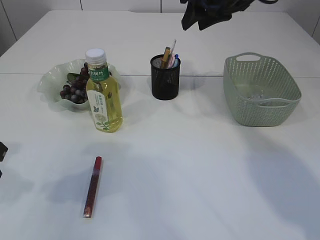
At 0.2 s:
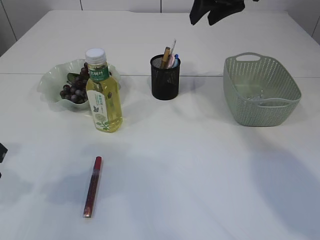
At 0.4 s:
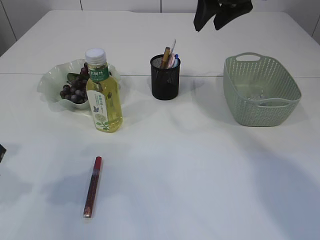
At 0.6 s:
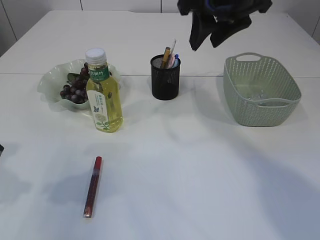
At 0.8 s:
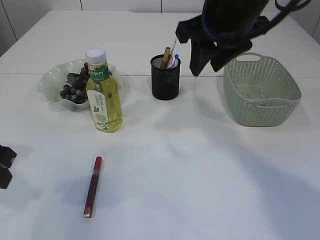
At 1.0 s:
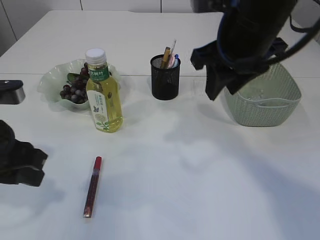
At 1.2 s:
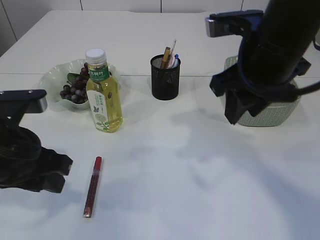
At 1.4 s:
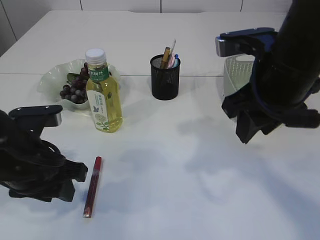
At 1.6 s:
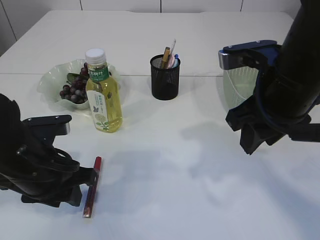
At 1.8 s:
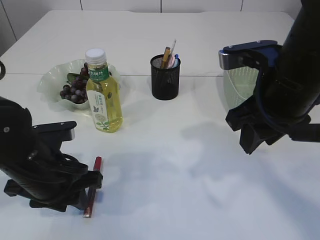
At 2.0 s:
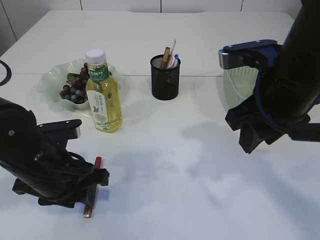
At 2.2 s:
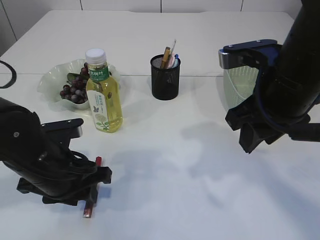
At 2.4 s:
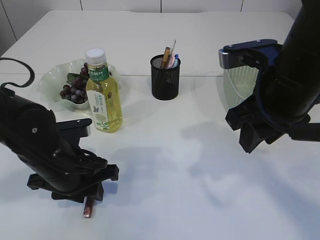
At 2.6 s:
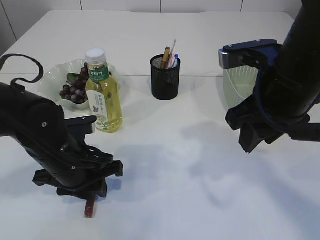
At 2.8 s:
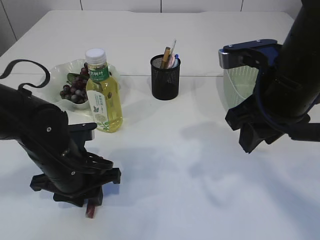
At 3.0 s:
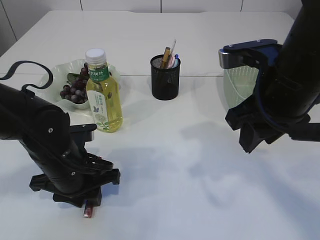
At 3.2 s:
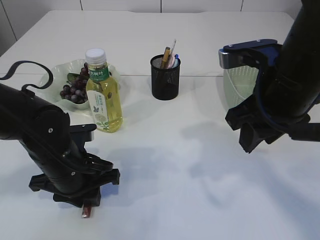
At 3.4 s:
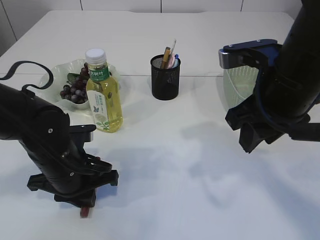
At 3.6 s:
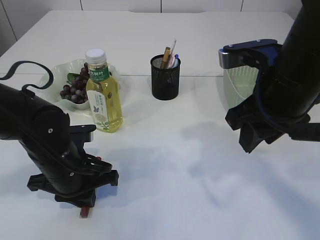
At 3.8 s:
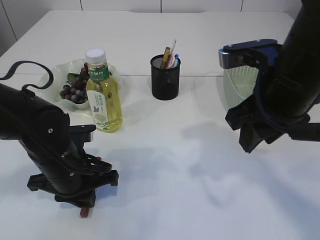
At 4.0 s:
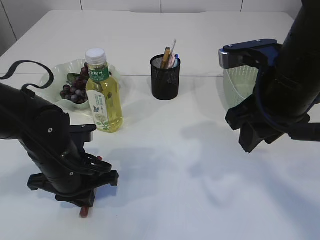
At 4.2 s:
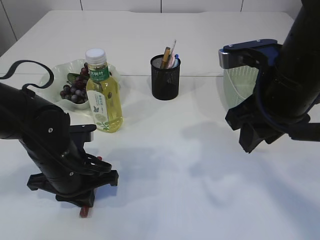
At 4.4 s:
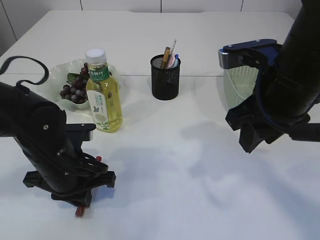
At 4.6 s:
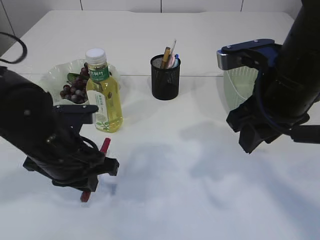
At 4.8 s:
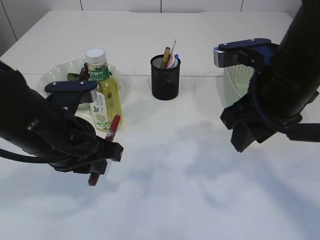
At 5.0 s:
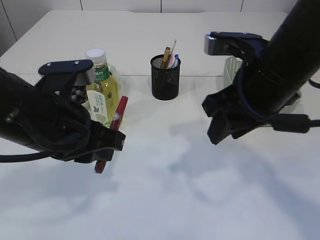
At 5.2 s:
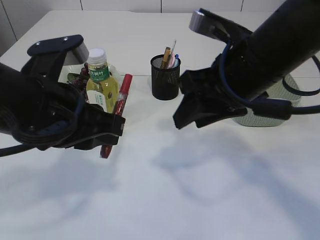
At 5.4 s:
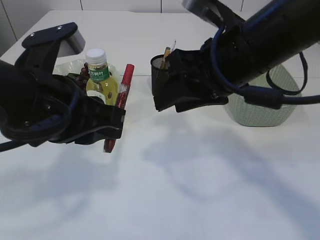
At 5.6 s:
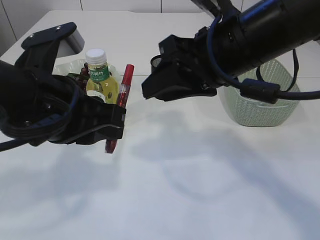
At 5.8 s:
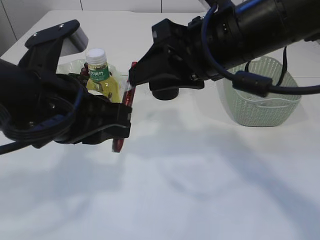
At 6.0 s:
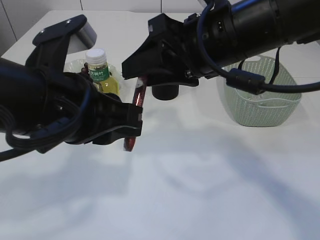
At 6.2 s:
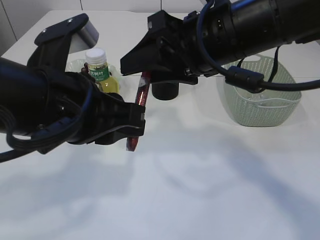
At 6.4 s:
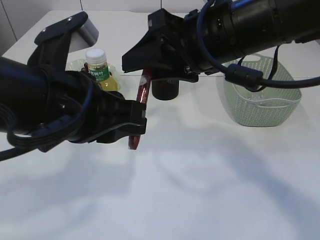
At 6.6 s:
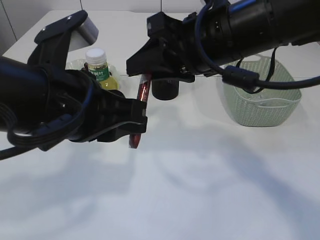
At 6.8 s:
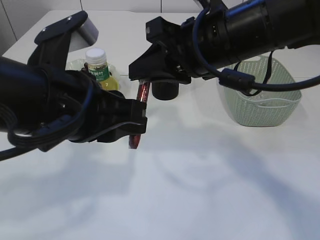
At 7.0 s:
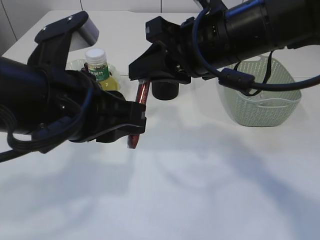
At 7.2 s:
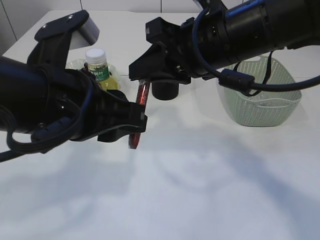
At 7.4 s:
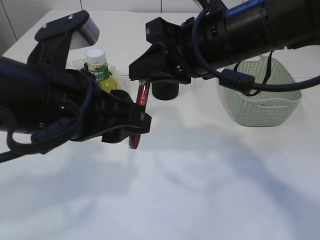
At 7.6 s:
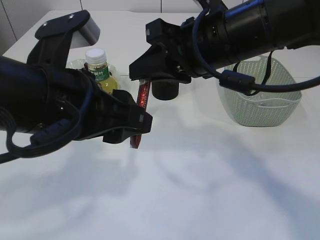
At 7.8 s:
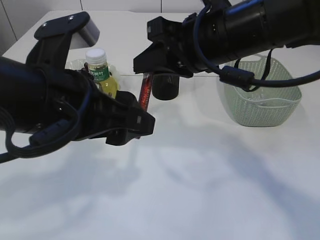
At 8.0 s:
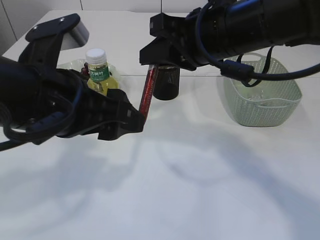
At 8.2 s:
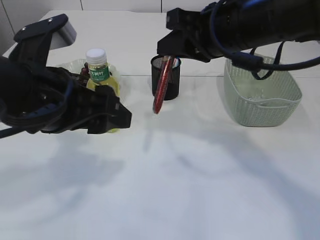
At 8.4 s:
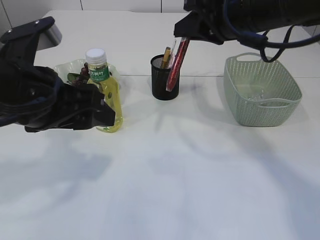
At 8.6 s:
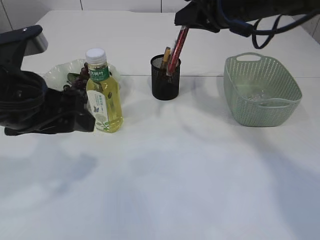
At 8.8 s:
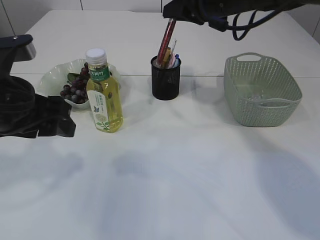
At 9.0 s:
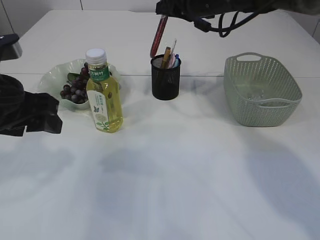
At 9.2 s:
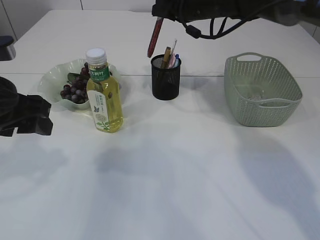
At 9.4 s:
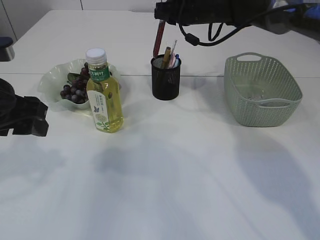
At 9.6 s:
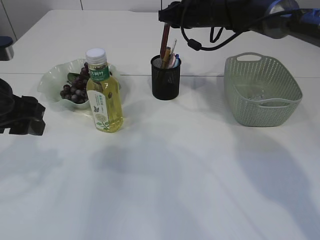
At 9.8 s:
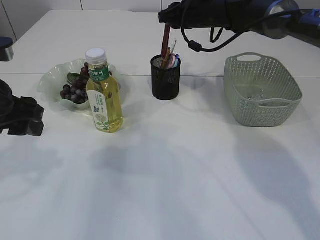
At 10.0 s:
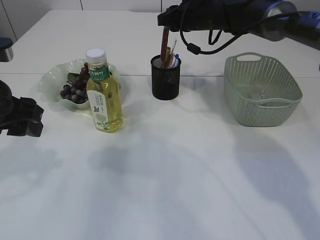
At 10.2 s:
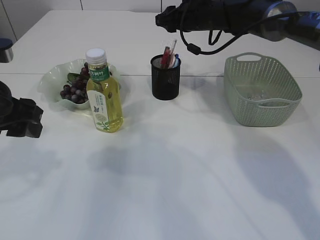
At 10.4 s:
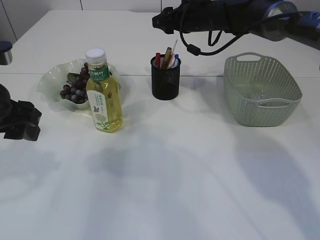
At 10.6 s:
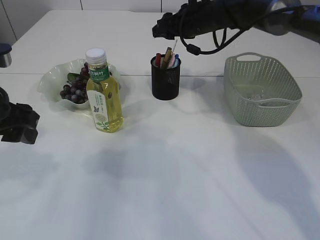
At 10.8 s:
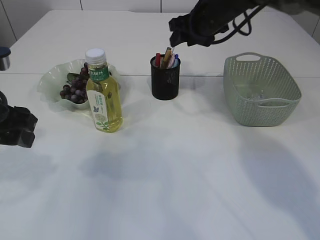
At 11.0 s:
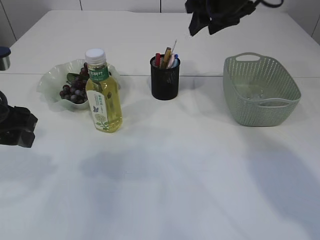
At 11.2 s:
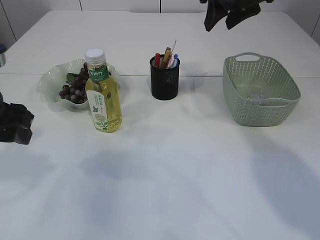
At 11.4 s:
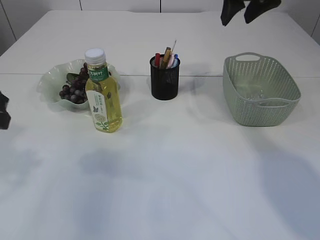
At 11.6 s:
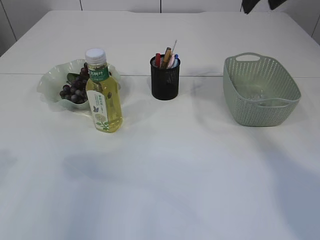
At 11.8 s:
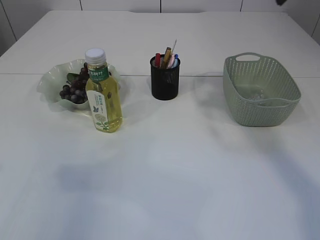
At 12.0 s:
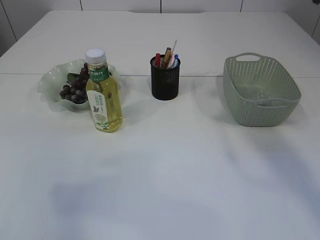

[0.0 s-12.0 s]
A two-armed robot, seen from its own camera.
Step, 0.0 to 5.0 s: pick up the red glue.
Step, 5.2 to 8.2 s: Hand over the red glue.
Step, 8.4 to 10.8 s: place the red glue into the pen holder.
0.0 to 1.6 s: The left gripper shifts approximately 10 cm to the right and downward. Meanwhile the right gripper heads backward, covering approximately 20 cm.
1.6 to 3.0 s: The left gripper ends up some 5 cm from where it was.
3.0 to 4.4 s: The left gripper closes its fingers.
4.4 to 6.0 s: The left gripper moves upward and backward, roughly 20 cm. The right gripper heads to the left, covering roughly 5 cm.
6.0 to 7.6 s: The right gripper closes its fingers, while the left gripper opens its fingers.
7.6 to 9.0 s: The right gripper shifts about 20 cm forward. The left gripper goes some 10 cm to the left and forward.
9.0 to 10.4 s: The right gripper is displaced forward and downward by about 10 cm, and opens its fingers.
10.4 to 12.0 s: The left gripper moves backward, upward and to the left, roughly 15 cm, while the right gripper heads backward, upward and to the right, covering approximately 35 cm.

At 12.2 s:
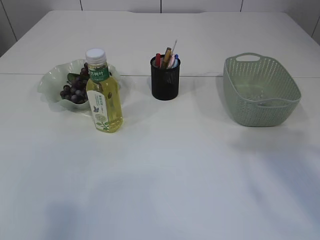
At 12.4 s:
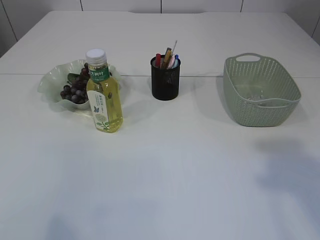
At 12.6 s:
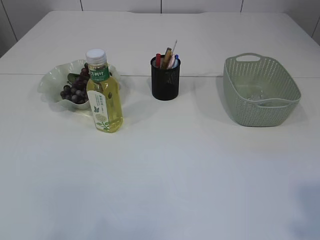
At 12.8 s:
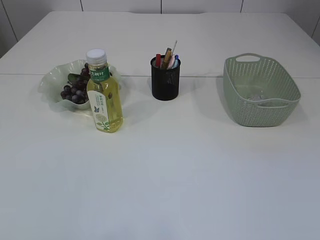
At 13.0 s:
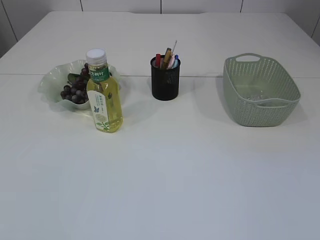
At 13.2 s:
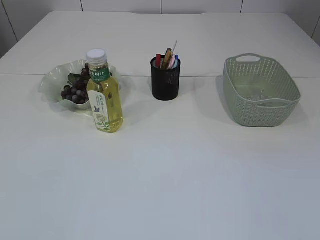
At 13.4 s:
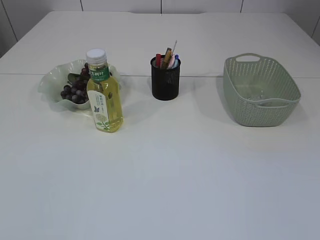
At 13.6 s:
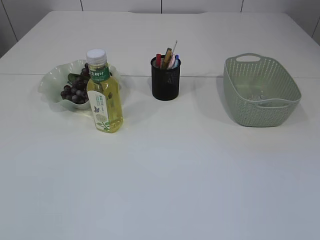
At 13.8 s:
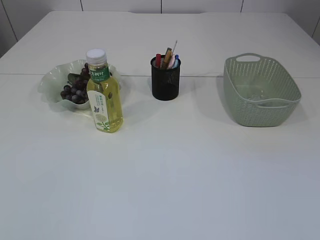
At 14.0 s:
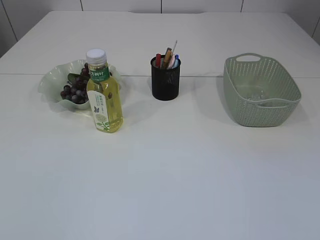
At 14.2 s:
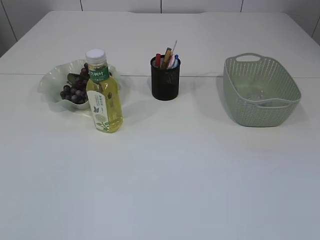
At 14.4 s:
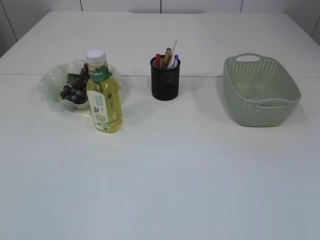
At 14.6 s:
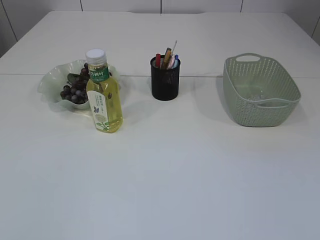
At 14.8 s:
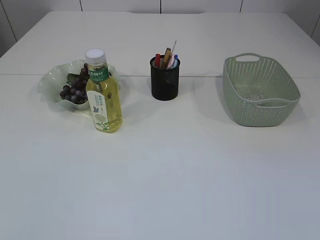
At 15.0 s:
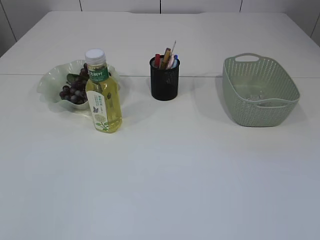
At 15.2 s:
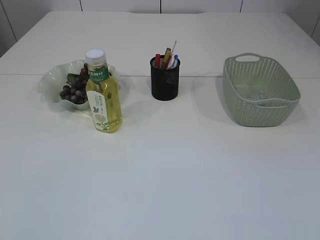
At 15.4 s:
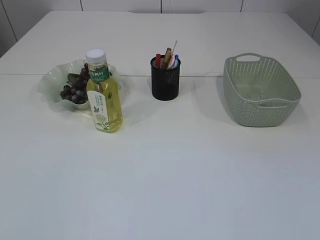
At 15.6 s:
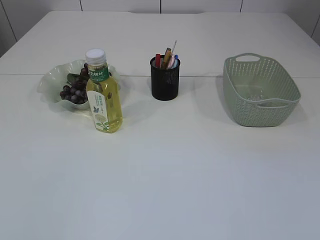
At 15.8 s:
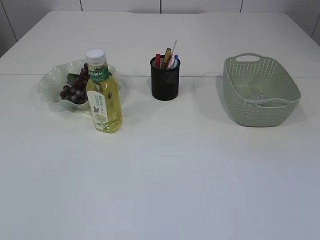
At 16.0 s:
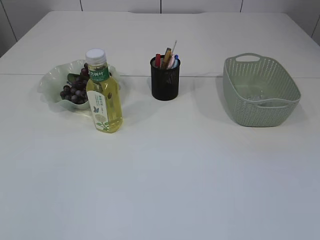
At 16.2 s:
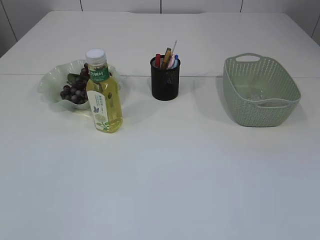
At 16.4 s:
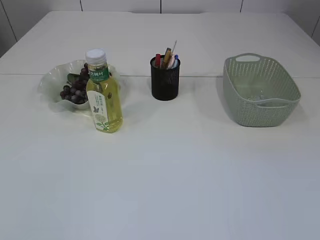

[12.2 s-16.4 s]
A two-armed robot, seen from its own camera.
12.2 to 13.6 s: The left gripper travels backward by about 15 cm; the right gripper heads backward and downward, covering some 30 cm.

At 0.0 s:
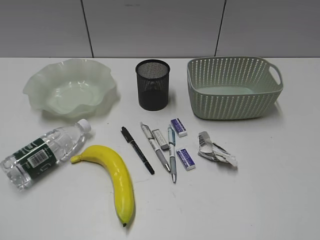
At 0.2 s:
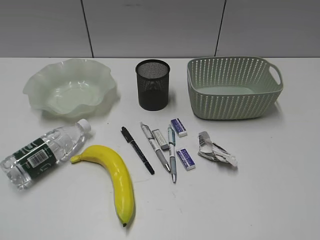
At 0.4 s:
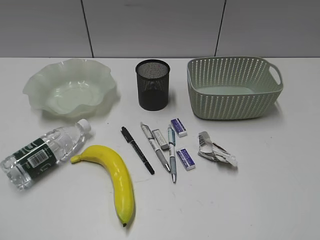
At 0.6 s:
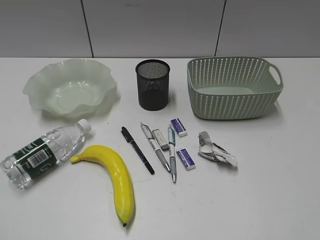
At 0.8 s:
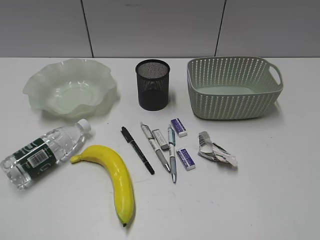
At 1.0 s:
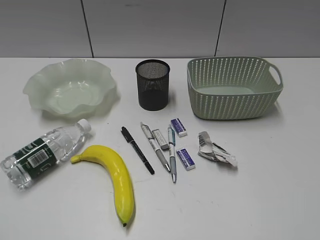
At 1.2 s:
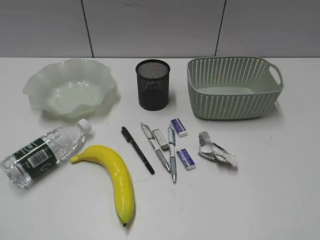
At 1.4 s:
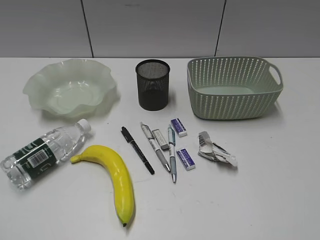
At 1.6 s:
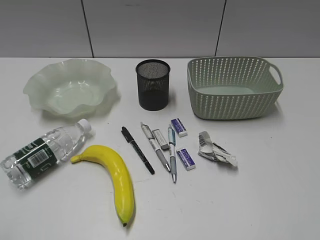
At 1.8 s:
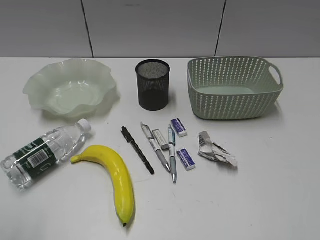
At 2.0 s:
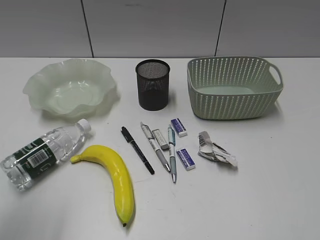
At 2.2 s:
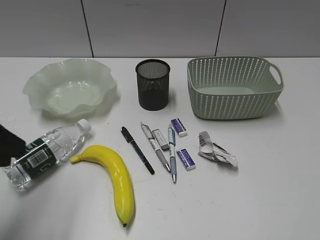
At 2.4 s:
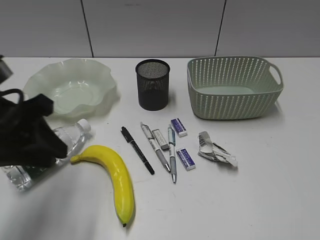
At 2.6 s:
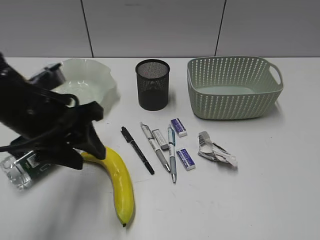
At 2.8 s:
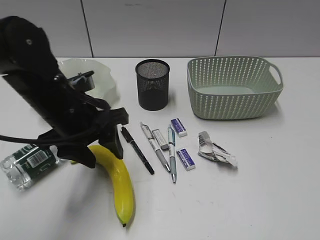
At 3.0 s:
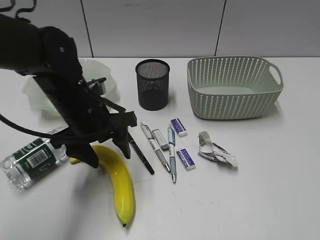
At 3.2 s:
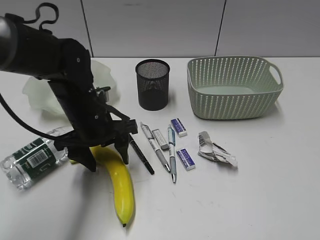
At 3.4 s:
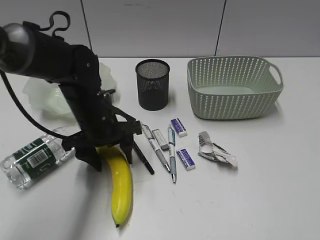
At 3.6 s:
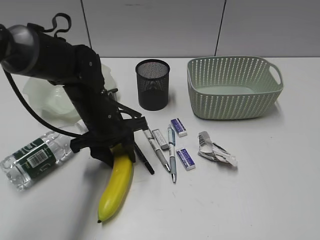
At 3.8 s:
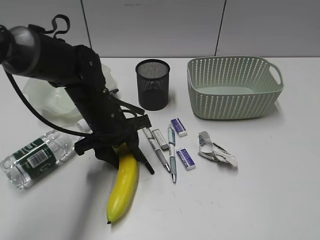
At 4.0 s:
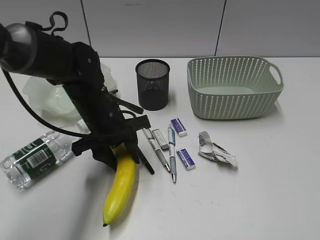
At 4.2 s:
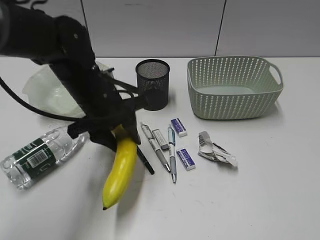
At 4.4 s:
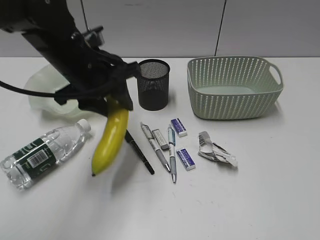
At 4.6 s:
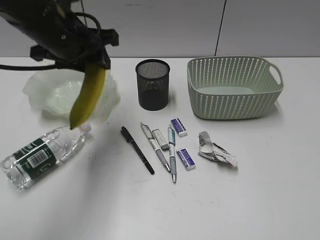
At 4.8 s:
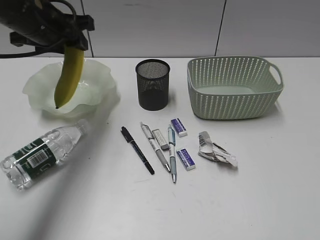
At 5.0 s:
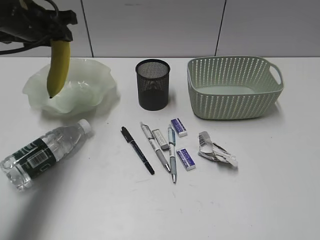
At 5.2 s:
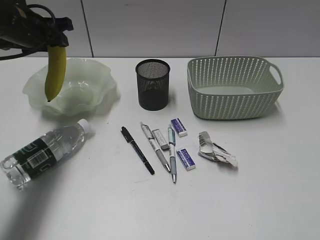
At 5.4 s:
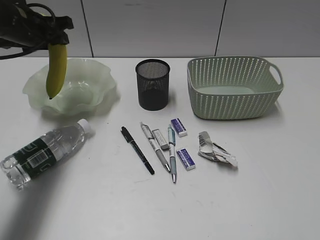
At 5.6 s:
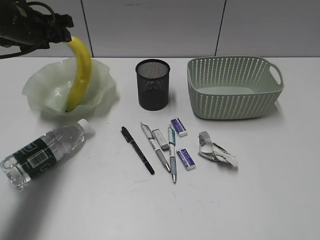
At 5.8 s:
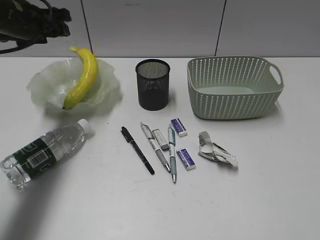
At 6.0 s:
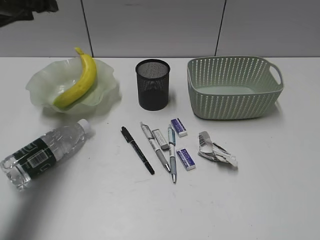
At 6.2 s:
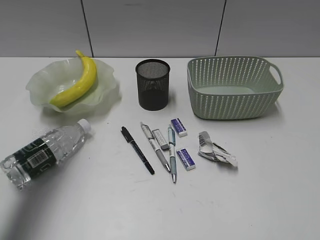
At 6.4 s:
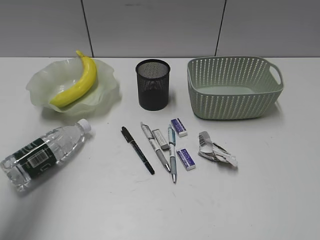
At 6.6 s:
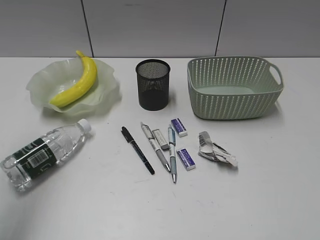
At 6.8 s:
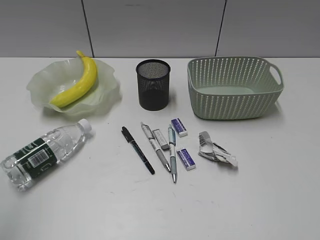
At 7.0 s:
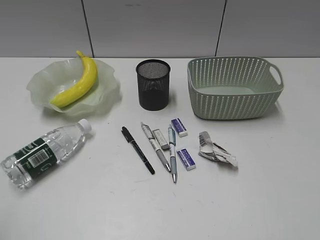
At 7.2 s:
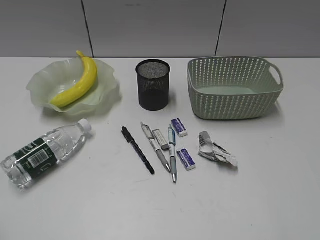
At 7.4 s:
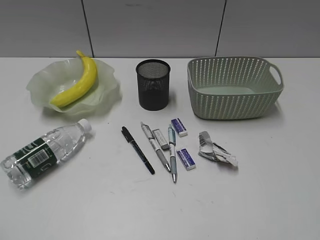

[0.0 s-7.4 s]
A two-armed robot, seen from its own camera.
Step, 1.8 to 3.6 s: Grasp the banana with left gripper.
Step, 3.8 to 5.6 s: Place the banana in the plate with left gripper.
1.4 to 3.0 s: The left gripper moves forward, to the right and downward, roughly 40 cm, and opens up.
3.0 to 4.4 s: The left gripper goes some 5 cm upward, and closes its fingers.
4.4 to 6.0 s: The left gripper is displaced to the left, forward and upward by approximately 15 cm.
6.0 to 7.4 s: The left gripper goes approximately 40 cm backward.
